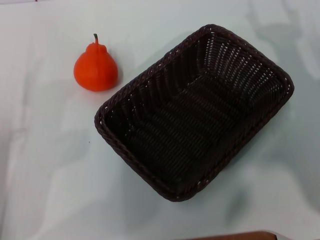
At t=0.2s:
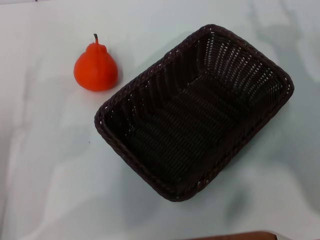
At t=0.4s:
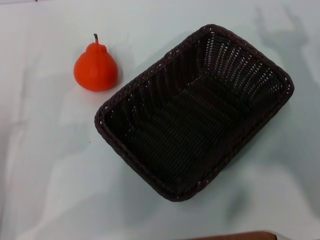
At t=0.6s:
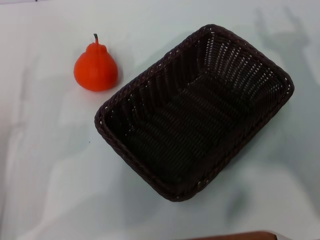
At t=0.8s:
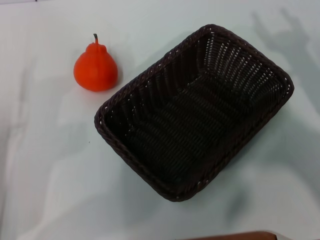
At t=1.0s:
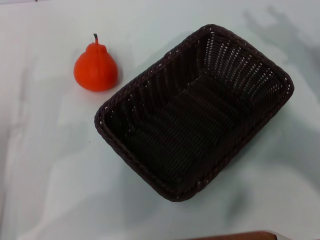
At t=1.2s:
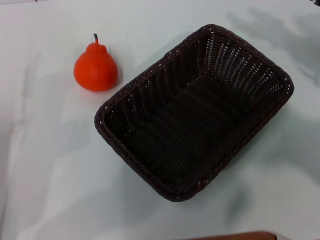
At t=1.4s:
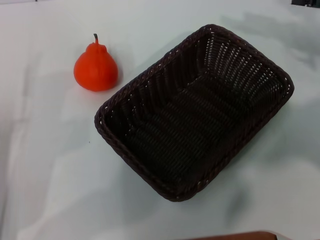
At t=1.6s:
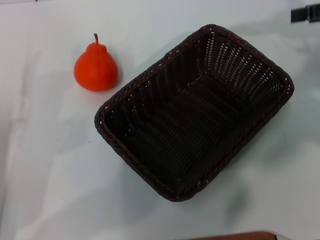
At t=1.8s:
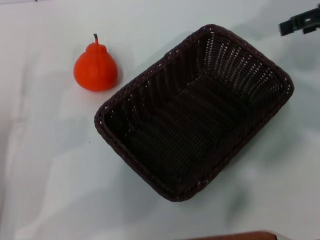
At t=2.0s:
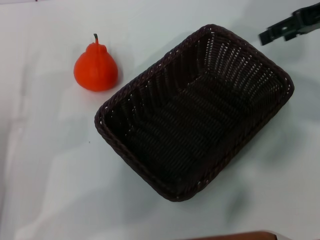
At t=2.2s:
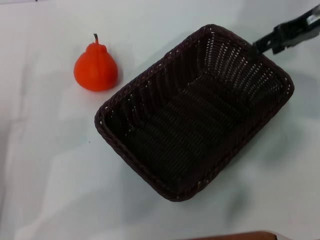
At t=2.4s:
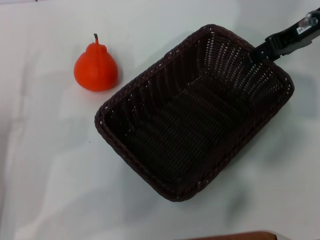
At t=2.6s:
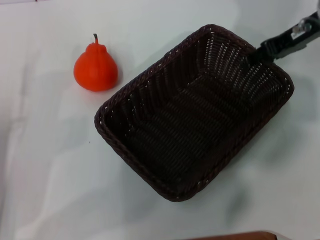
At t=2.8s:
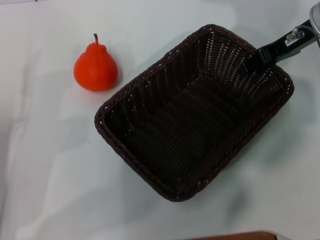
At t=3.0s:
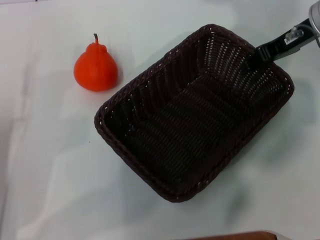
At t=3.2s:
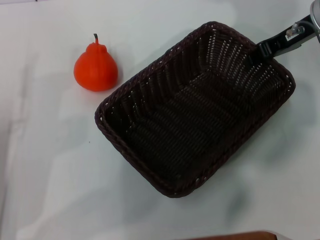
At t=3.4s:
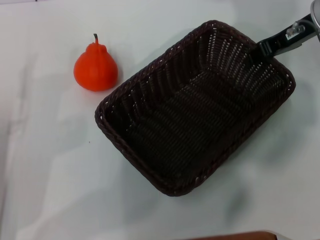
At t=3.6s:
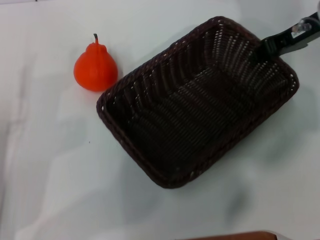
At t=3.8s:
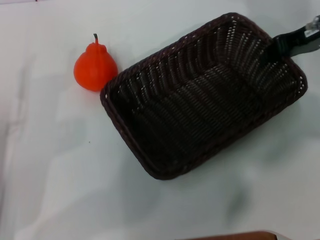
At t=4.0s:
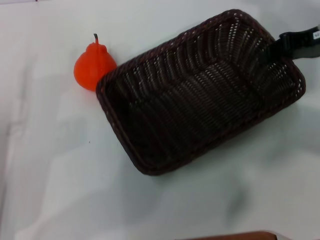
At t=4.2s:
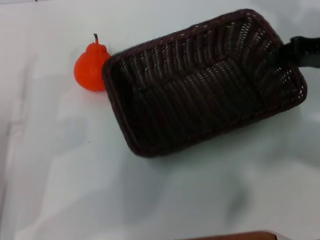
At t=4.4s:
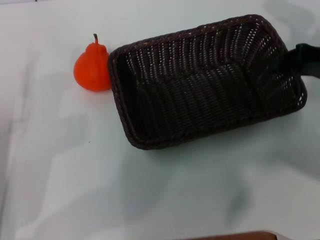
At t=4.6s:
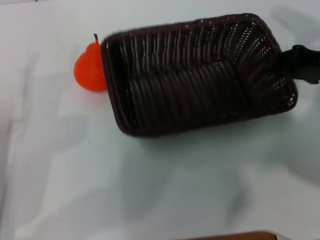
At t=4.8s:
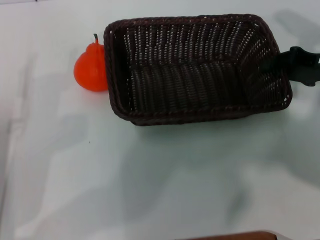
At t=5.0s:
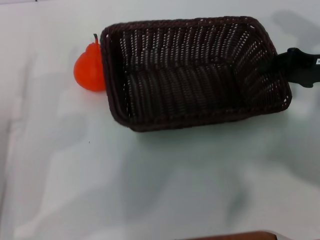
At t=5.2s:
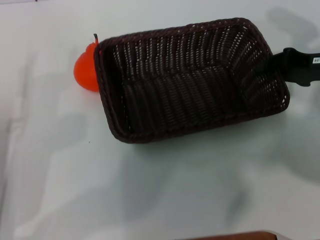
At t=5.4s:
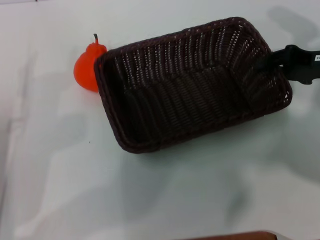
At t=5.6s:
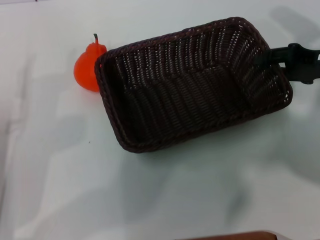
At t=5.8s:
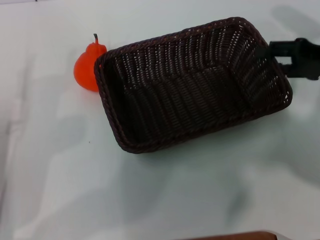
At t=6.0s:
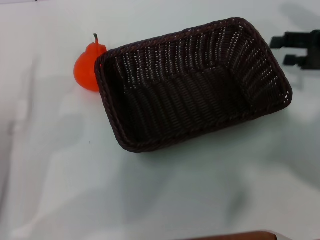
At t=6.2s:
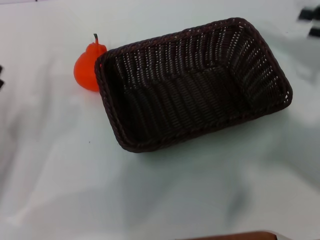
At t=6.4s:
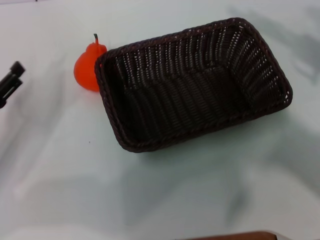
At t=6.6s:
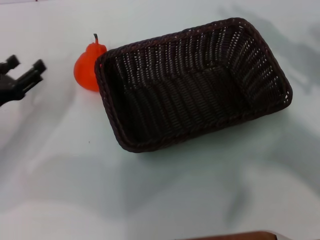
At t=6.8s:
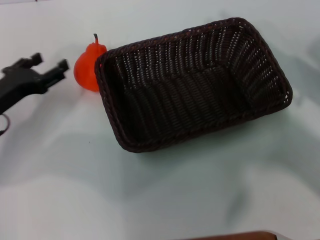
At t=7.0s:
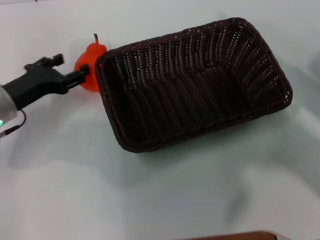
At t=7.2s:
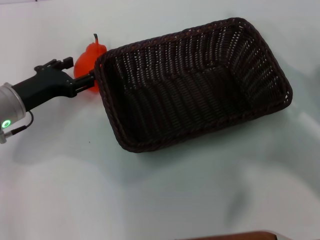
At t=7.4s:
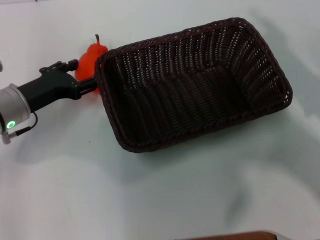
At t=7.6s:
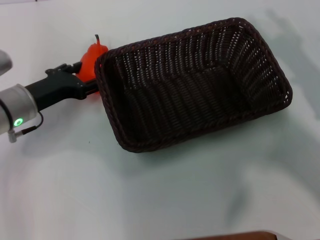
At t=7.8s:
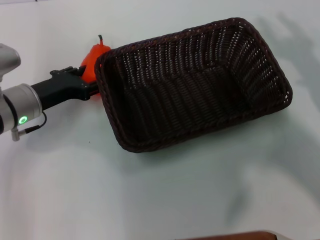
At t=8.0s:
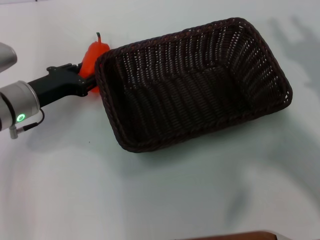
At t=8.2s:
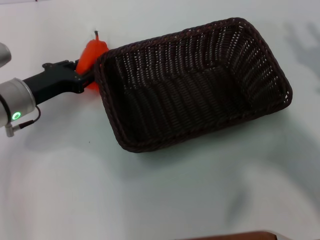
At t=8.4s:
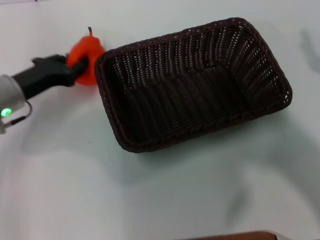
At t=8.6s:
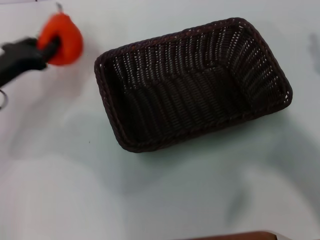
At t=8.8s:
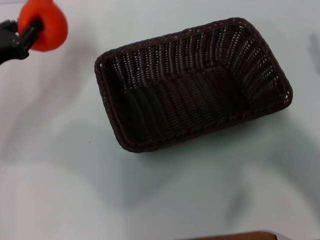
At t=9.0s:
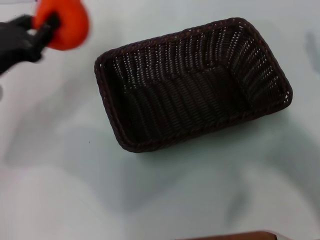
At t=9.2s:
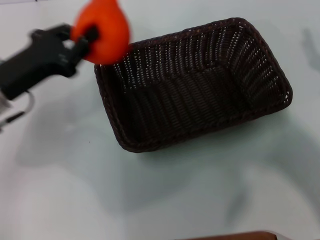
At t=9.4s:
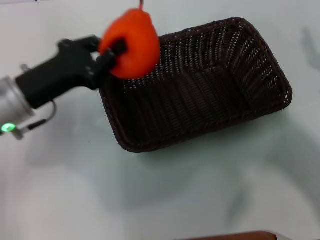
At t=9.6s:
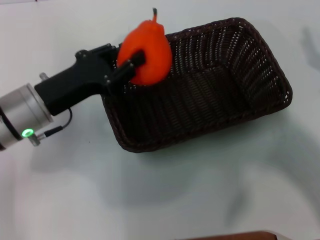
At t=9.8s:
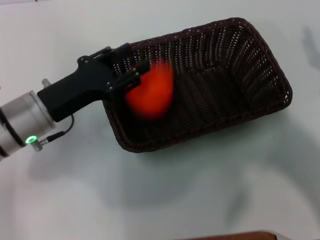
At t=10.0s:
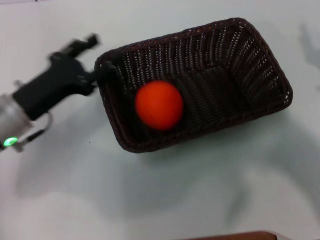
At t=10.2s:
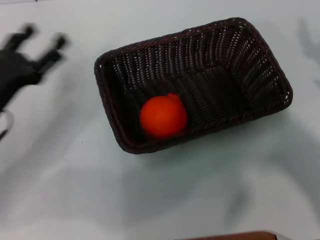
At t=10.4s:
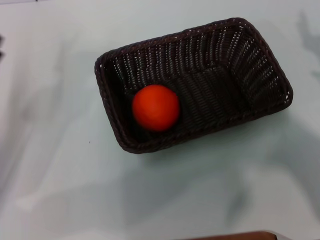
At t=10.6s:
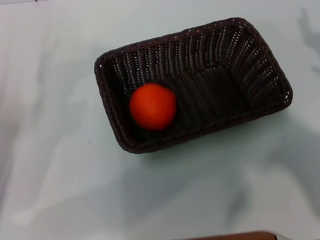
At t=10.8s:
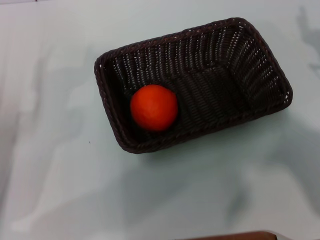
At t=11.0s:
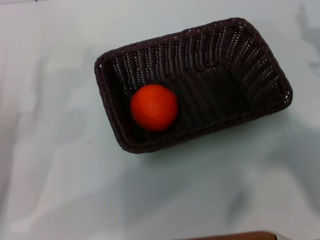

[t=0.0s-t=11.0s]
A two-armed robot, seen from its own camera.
Task of the whole recording: the right gripper pick up the black basket and place it horizontally in the middle of the table, the left gripper pick up the orange and place it into the black basket.
Step, t=0.0s to t=3.8s: Pick up the dark basket with the right gripper.
Step, t=4.2s to t=5.8s: Place the dark basket in the center of view with the right gripper.
Step, t=6.2s to t=8.4s: Pick up the orange with the left gripper.
Step, t=8.6s to t=10.0s: Place the orange into the dark basket with the left gripper.
t=0.0s to t=1.6s: The right gripper is displaced upward and forward by some 20 cm.
t=1.6s to t=3.2s: The right gripper is displaced to the left and forward by some 10 cm, and closes up.
t=3.2s to t=4.8s: The right gripper shifts some 10 cm backward, to the right and downward.
t=4.8s to t=6.2s: The right gripper ends up about 5 cm from where it was, and opens up.
t=6.2s to t=7.8s: The left gripper moves forward and to the right, about 15 cm. The right gripper goes roughly 10 cm backward and downward.
t=7.8s to t=9.4s: The left gripper shifts about 5 cm upward, goes to the left and returns, approximately 5 cm each way, and closes up.
t=9.4s to t=11.0s: The right gripper is displaced forward by roughly 5 cm; the left gripper heads to the left, backward and downward, covering approximately 15 cm, and opens its fingers.

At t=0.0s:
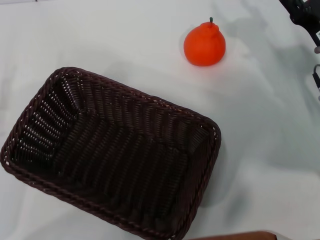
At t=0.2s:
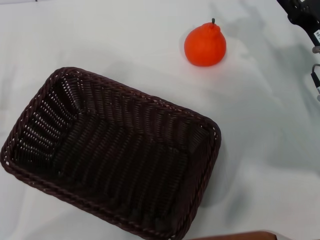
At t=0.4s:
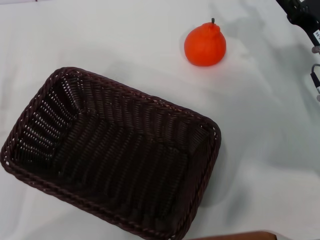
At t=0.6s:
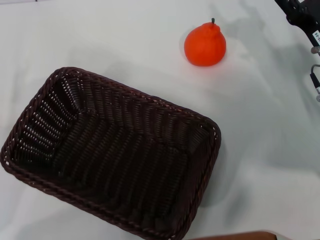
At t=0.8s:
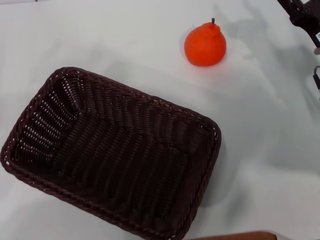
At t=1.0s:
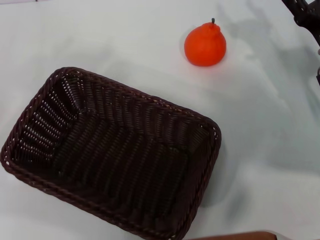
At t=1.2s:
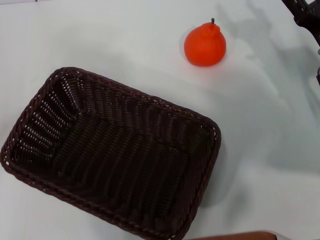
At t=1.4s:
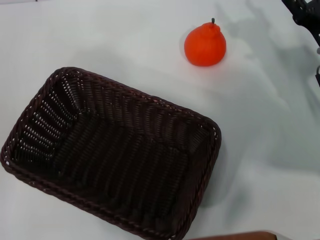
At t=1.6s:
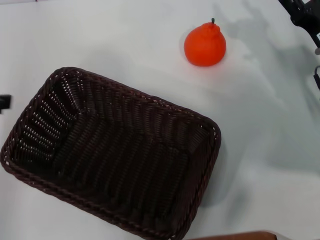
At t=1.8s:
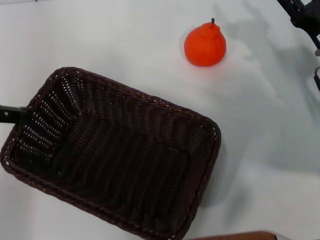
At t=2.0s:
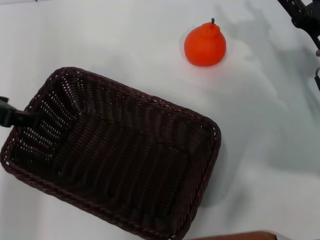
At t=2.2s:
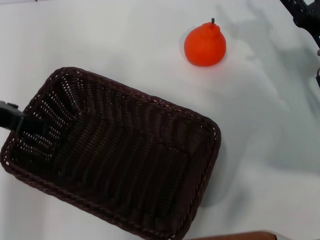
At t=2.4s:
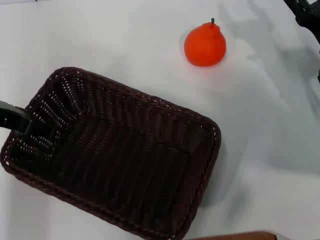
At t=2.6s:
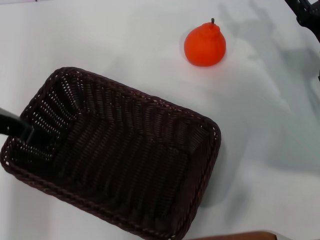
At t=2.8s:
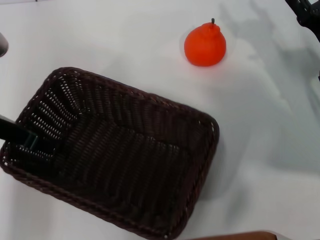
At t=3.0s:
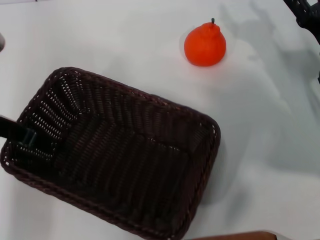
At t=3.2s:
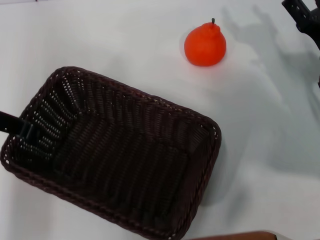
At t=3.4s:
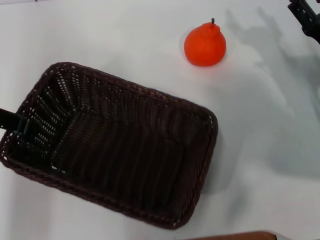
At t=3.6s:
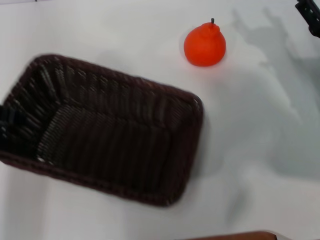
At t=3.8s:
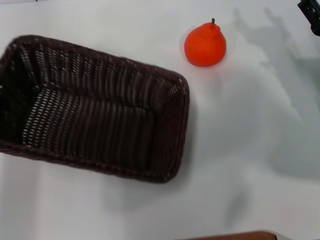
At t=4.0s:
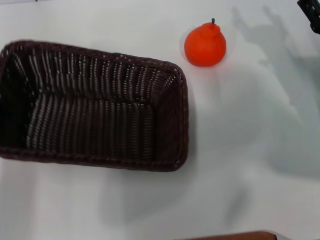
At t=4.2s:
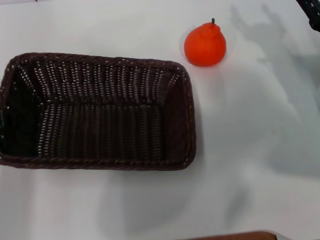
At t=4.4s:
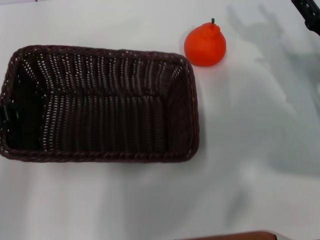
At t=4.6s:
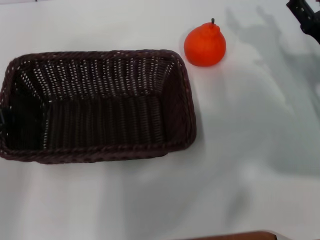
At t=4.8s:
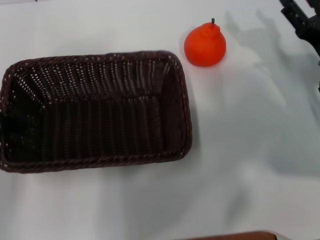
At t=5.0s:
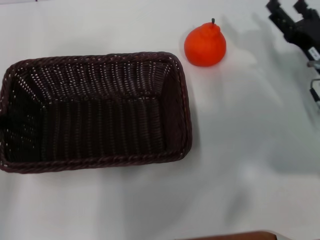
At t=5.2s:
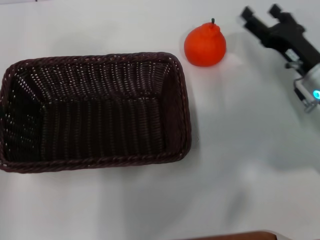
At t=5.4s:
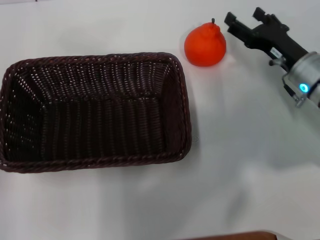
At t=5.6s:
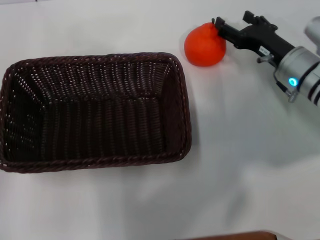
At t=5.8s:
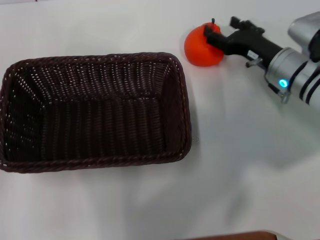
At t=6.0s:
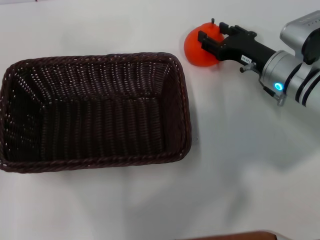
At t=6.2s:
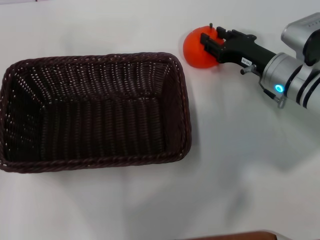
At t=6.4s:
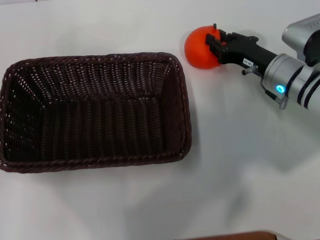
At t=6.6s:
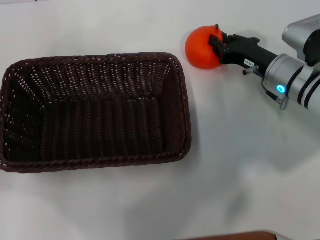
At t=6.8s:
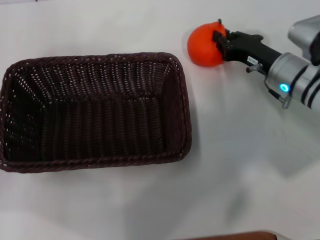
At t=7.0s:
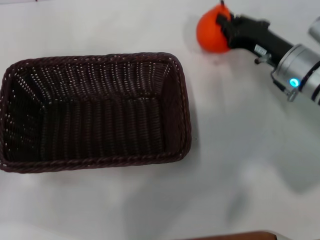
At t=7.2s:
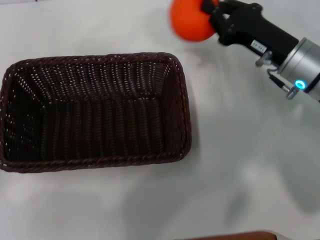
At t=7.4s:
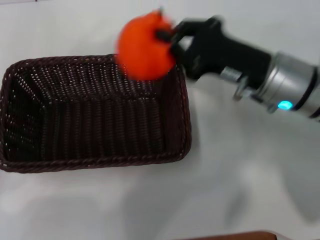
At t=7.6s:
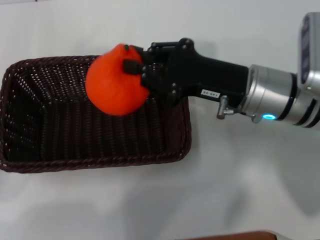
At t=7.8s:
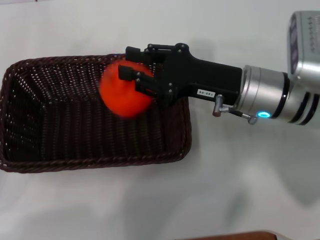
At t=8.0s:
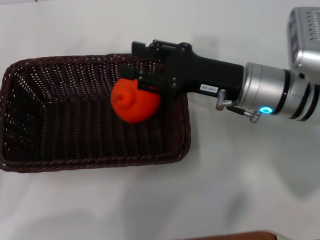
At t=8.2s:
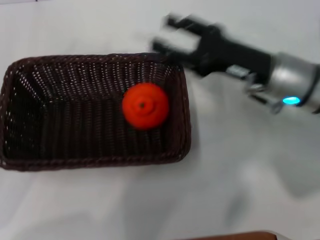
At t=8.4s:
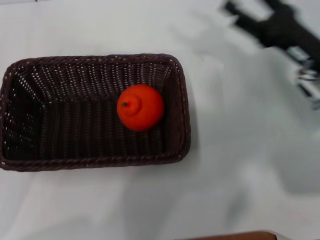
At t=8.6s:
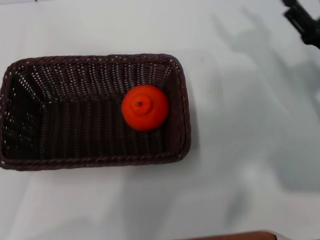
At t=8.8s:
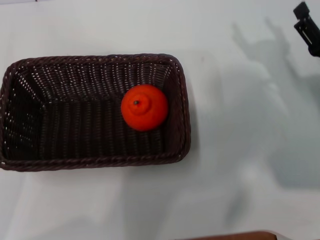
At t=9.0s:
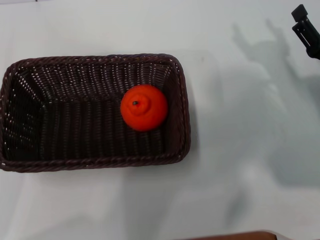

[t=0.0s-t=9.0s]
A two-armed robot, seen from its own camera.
Task of the whole recording: the left gripper pick up the black basket and place it horizontally in the middle of the table, the right gripper pick up the orange and place it into the black basket.
Step, t=0.0s to t=3.6s: Pick up the dark basket with the left gripper.
Step, t=3.8s to t=5.0s: Place the dark basket in the center of view with the left gripper.
Step, t=5.2s to t=7.0s: Pick up the orange with the right gripper.
Step, t=7.2s to t=8.2s: Place the orange into the dark basket with the right gripper.
t=0.0s to t=1.6s: The left gripper moves upward, about 20 cm.
t=1.6s to t=3.0s: The left gripper goes approximately 10 cm to the right and downward, and closes its fingers.
t=3.0s to t=4.4s: The left gripper ends up roughly 5 cm from where it was, and closes.
t=4.4s to t=6.0s: The right gripper shifts approximately 10 cm to the left and forward. The left gripper opens up.
t=6.0s to t=7.6s: The right gripper heads upward, backward and to the left, covering roughly 10 cm, and closes up. The left gripper is displaced downward and backward by some 10 cm.
t=7.6s to t=9.0s: The right gripper moves to the right and downward, roughly 15 cm, and opens, while the left gripper is displaced downward by roughly 5 cm.
